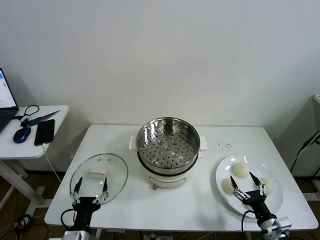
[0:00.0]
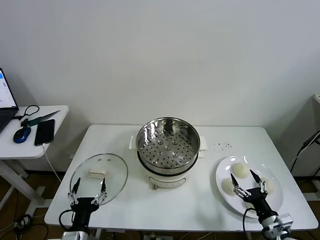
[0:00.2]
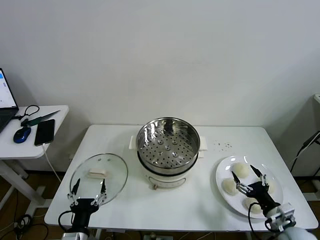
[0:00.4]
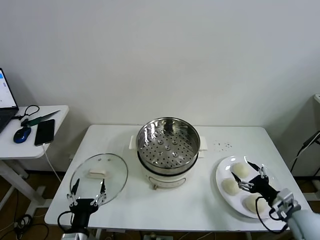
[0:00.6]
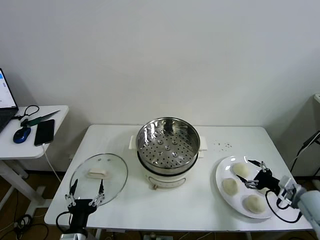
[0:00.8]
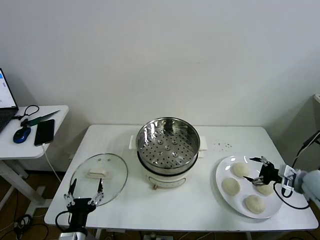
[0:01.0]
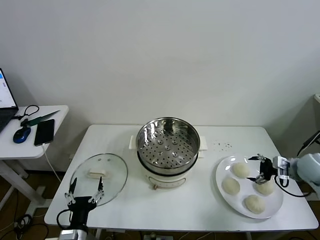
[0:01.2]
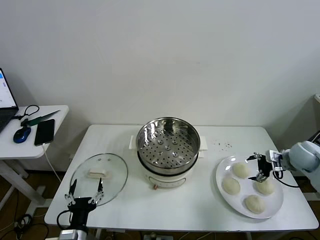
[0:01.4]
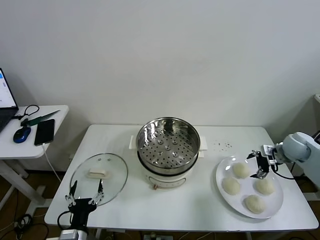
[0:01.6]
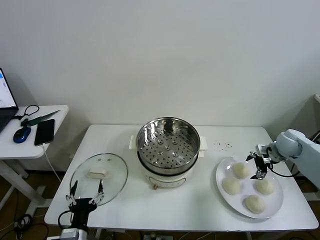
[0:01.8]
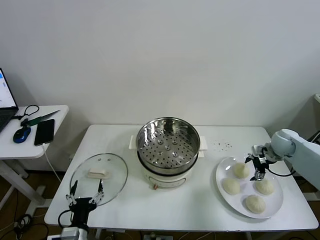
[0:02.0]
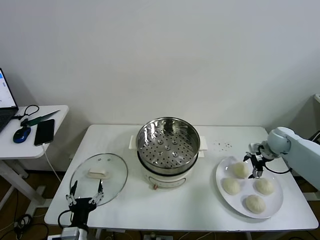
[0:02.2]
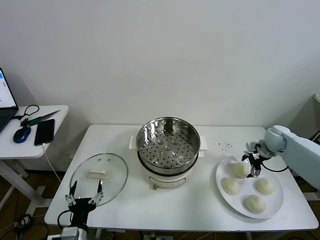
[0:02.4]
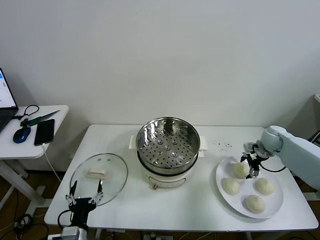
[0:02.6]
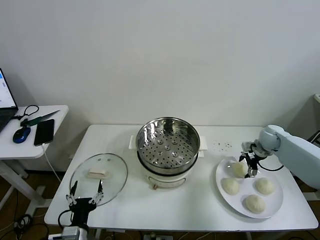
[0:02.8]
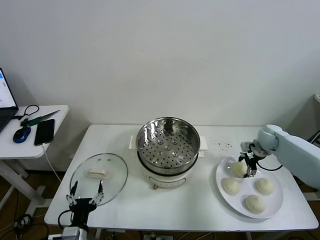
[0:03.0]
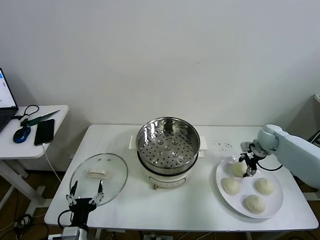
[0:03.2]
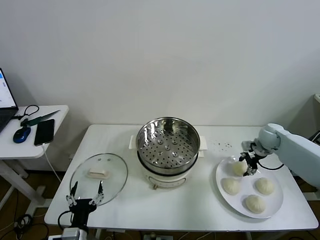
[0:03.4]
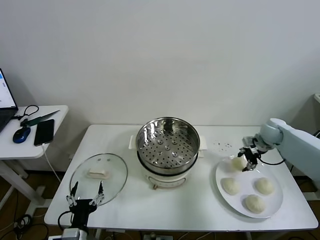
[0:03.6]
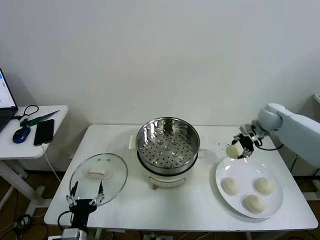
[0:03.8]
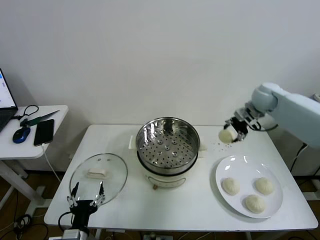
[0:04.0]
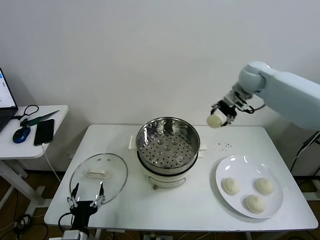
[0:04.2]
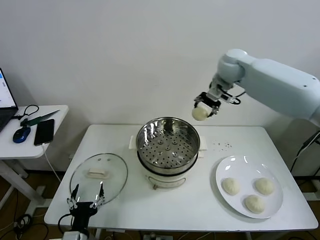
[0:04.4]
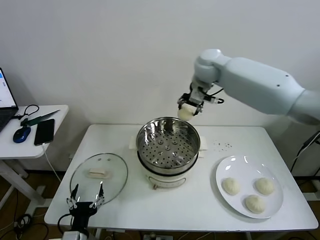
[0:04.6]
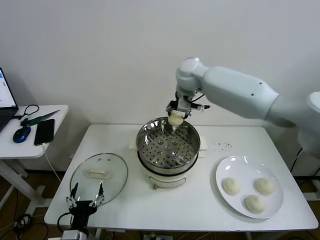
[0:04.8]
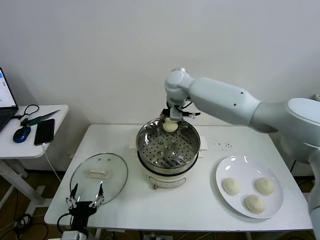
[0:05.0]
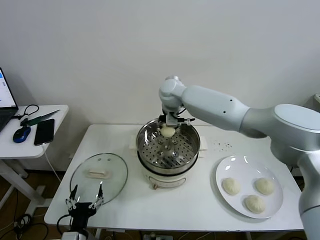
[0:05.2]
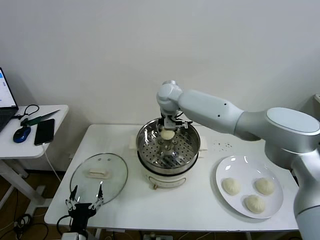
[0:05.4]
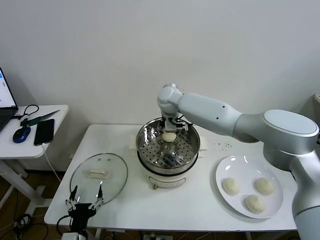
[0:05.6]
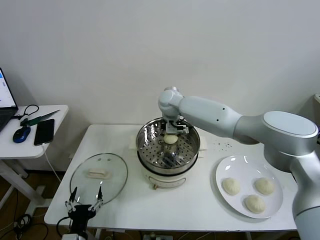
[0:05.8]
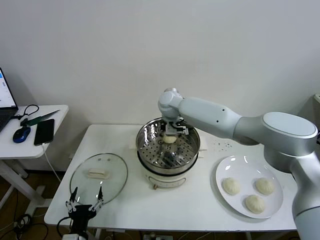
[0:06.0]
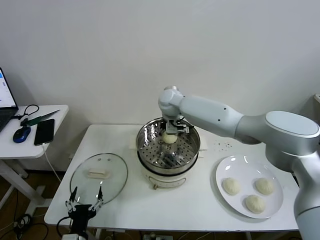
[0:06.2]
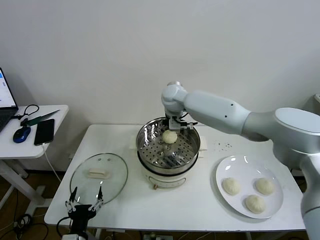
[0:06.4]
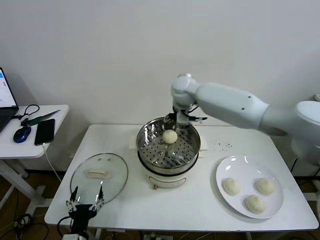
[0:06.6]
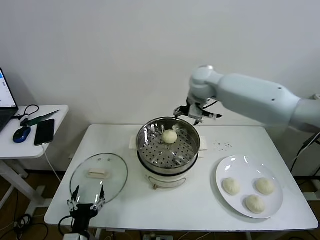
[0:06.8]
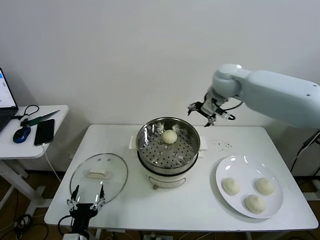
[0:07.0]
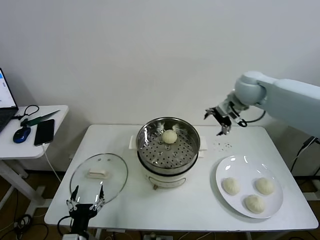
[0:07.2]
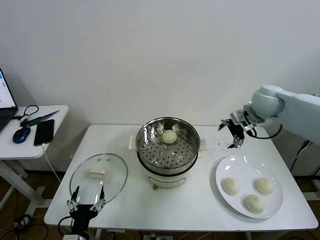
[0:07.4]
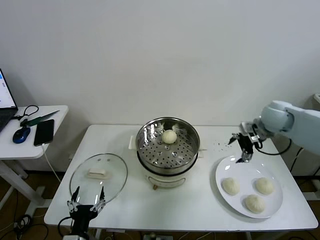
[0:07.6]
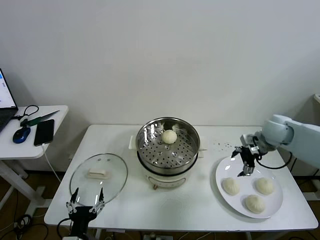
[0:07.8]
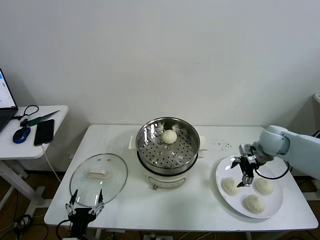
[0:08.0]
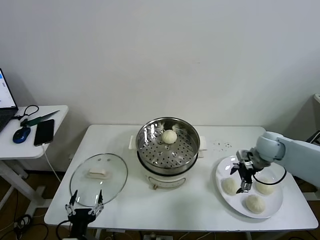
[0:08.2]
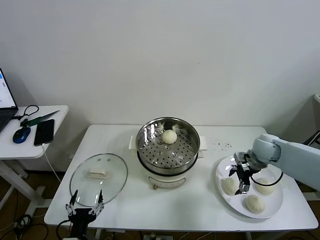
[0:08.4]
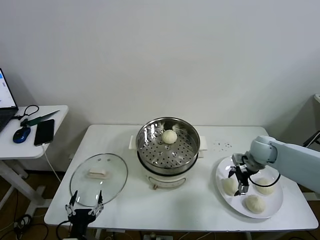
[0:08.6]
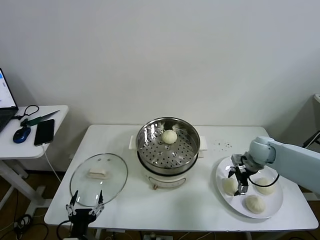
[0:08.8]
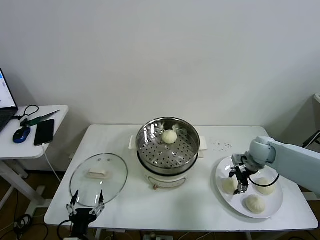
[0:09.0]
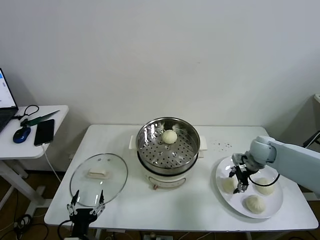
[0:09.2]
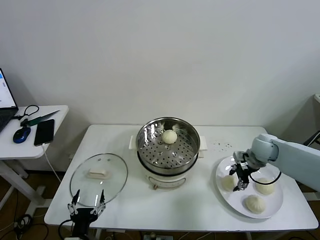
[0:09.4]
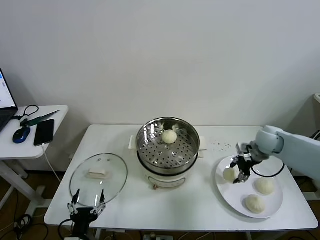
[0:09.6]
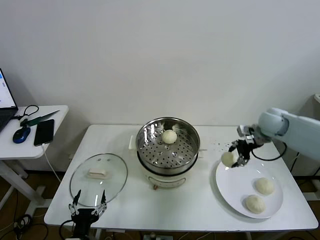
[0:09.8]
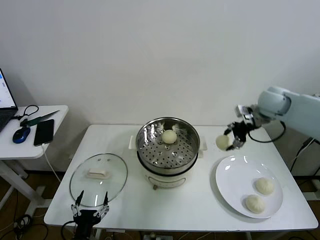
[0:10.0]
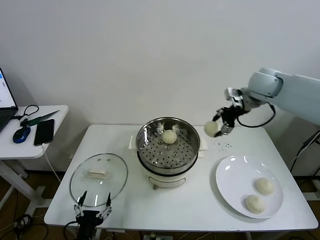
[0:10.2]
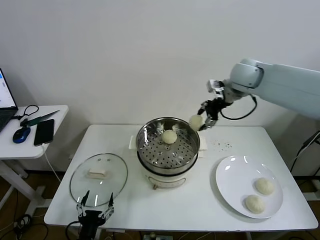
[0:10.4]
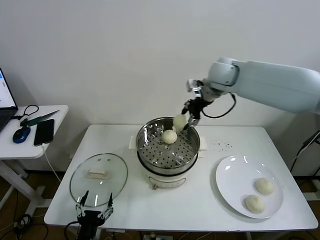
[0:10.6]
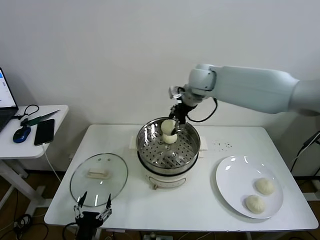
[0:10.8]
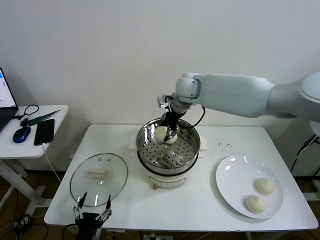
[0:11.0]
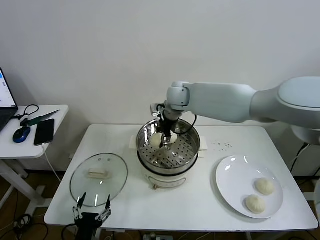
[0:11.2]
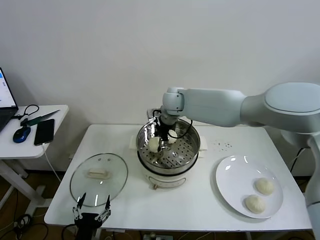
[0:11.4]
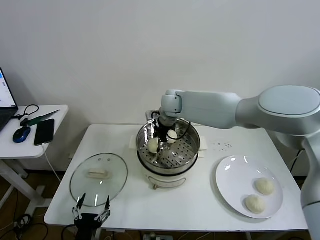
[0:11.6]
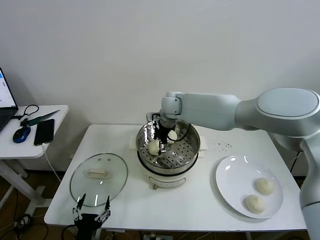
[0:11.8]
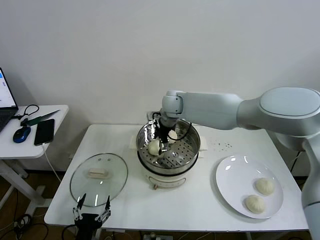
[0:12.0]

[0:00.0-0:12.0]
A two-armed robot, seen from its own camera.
Task of the whole recording: take steamed baozi put them in steamer then cover it.
Step, 0.0 to 3.2 s: Grasp the baozi in the plate with right gripper.
Step, 3.4 to 6.0 s: Place the baozi on the steamer with right gripper.
Step, 6.2 to 9.0 s: Grasp the baozi in the plate with right gripper.
Step, 9.4 to 12.0 s: Place the baozi on the steamer with right gripper.
1.6 to 3.0 s: The right gripper travels forward by about 5 cm, and closes up.
3.0 to 4.4 s: The right gripper travels upward and to the left by approximately 35 cm, and closes up.
4.4 to 6.0 s: The right gripper shifts approximately 20 cm to the left and downward, and opens up.
6.0 to 7.6 s: The right gripper is displaced to the right by approximately 35 cm.
7.6 to 9.0 s: The right gripper is displaced downward by some 15 cm, and closes up.
9.0 to 10.4 s: The right gripper shifts approximately 30 cm upward and to the left.
10.4 to 12.0 s: The right gripper heads to the left and downward, covering about 20 cm, and opens.

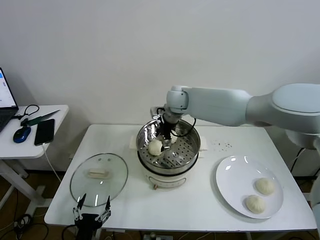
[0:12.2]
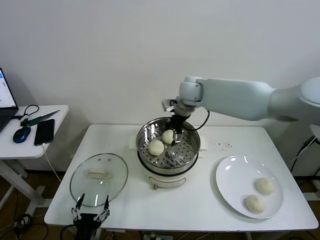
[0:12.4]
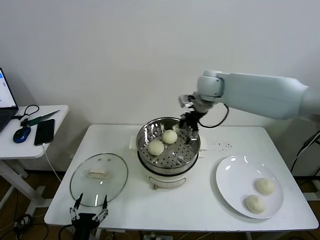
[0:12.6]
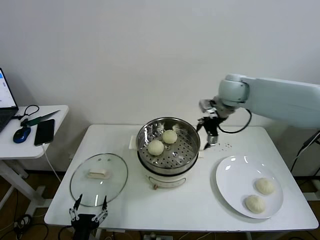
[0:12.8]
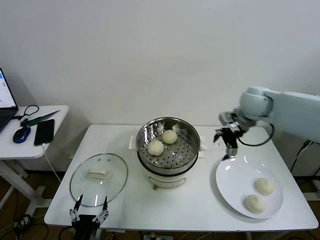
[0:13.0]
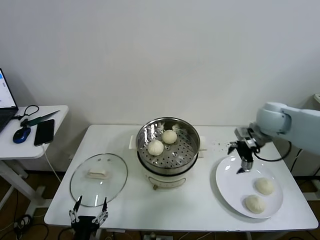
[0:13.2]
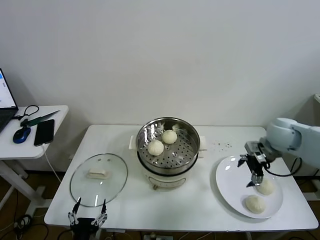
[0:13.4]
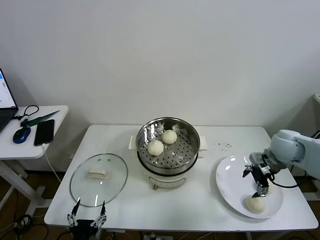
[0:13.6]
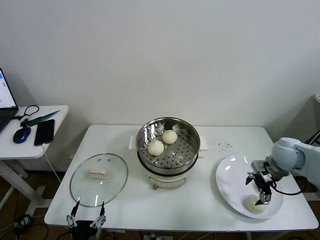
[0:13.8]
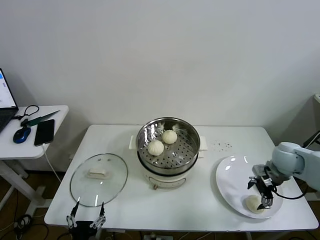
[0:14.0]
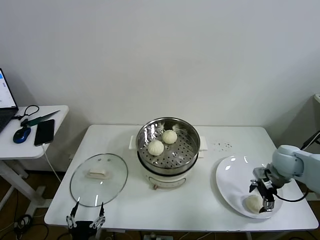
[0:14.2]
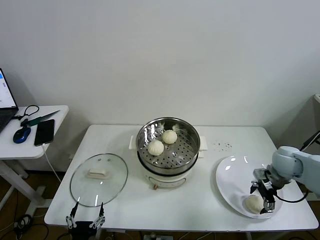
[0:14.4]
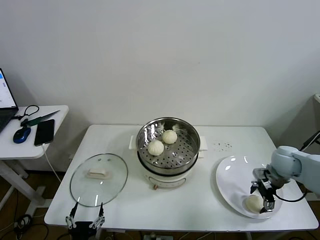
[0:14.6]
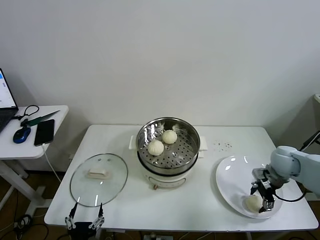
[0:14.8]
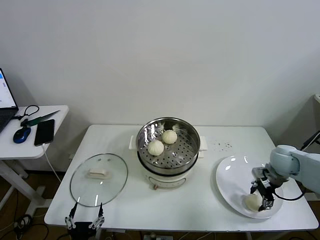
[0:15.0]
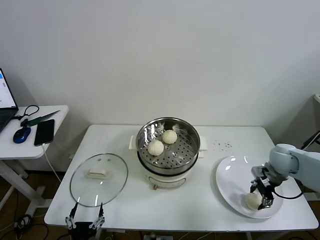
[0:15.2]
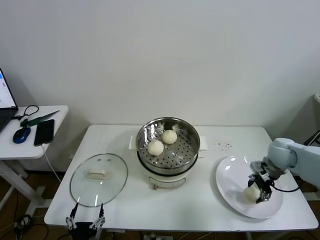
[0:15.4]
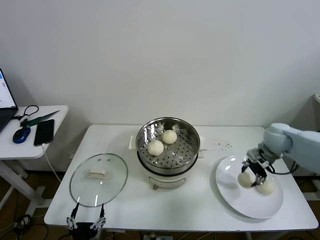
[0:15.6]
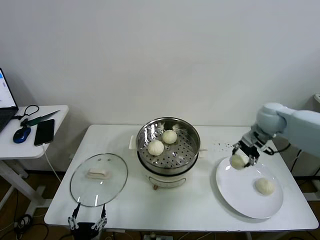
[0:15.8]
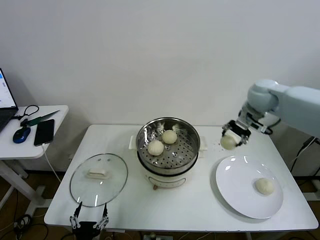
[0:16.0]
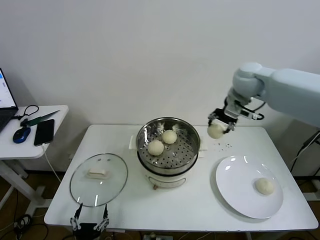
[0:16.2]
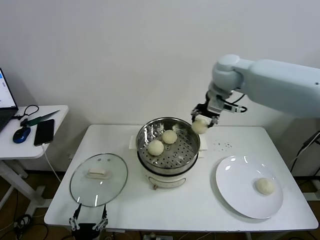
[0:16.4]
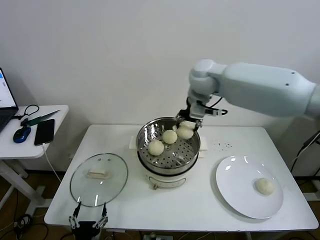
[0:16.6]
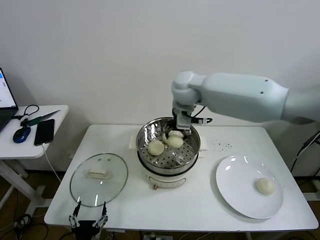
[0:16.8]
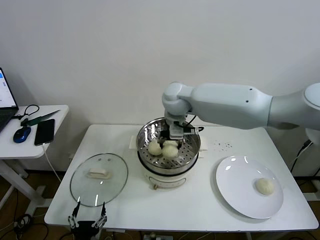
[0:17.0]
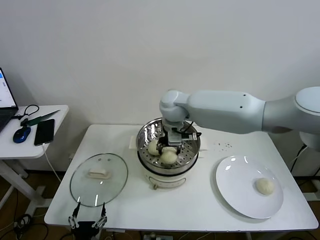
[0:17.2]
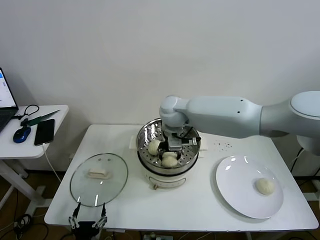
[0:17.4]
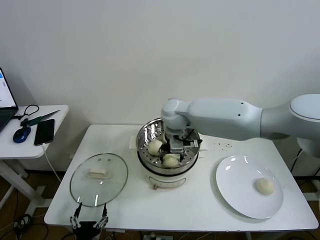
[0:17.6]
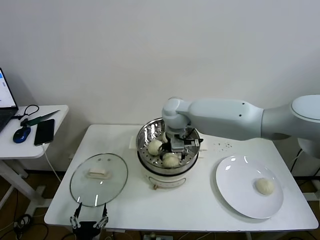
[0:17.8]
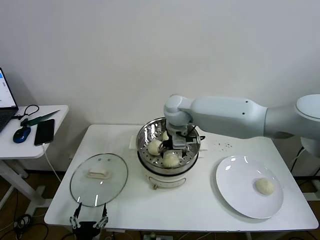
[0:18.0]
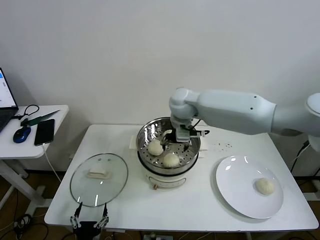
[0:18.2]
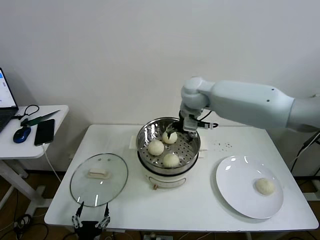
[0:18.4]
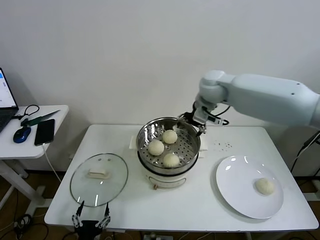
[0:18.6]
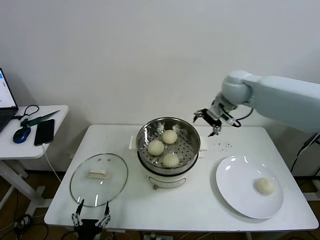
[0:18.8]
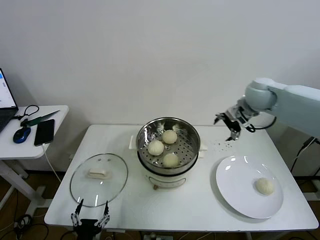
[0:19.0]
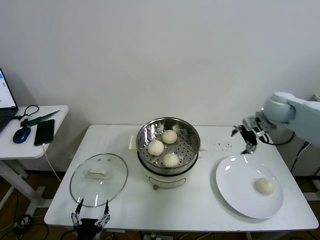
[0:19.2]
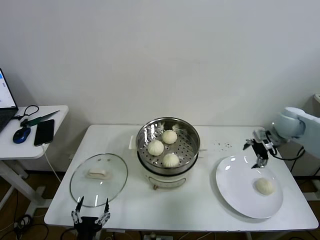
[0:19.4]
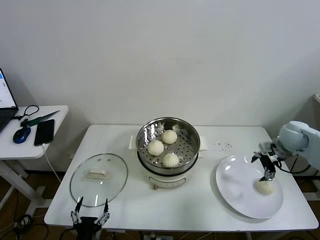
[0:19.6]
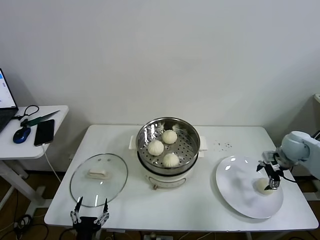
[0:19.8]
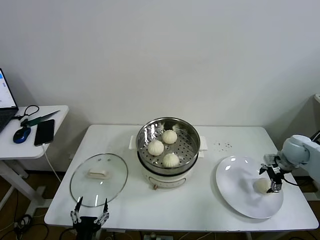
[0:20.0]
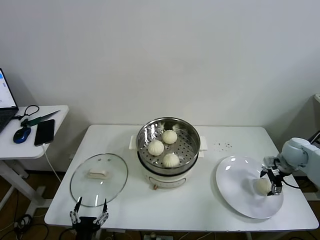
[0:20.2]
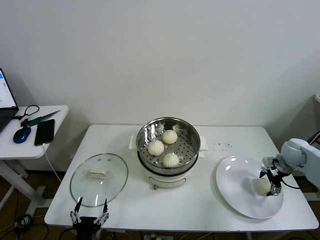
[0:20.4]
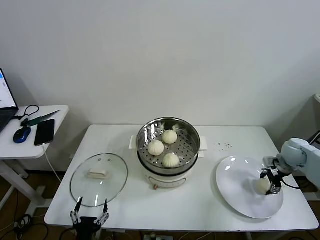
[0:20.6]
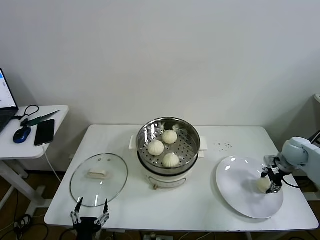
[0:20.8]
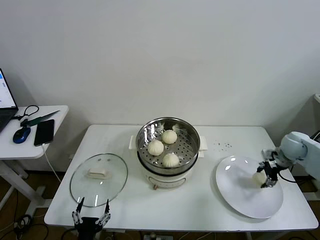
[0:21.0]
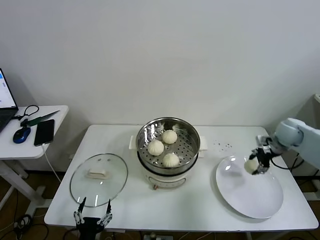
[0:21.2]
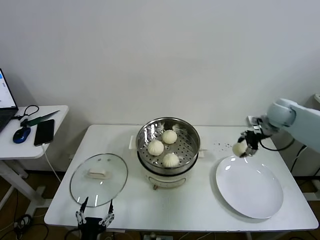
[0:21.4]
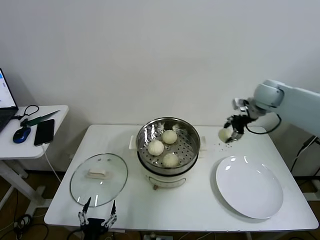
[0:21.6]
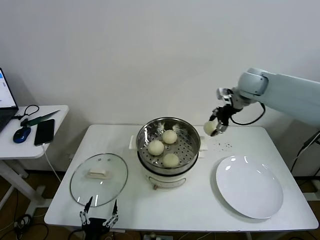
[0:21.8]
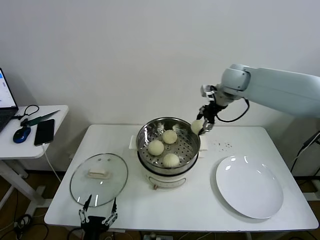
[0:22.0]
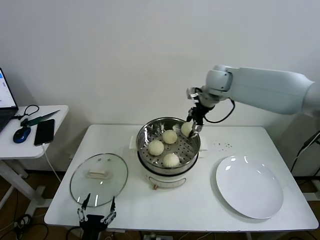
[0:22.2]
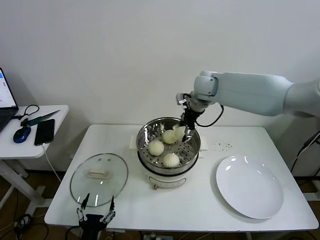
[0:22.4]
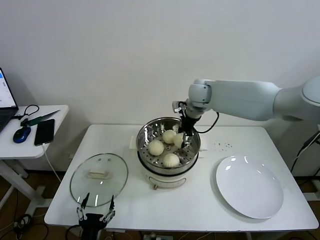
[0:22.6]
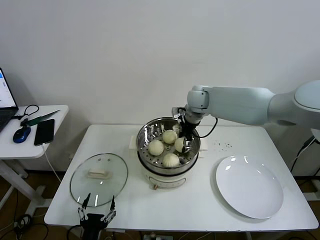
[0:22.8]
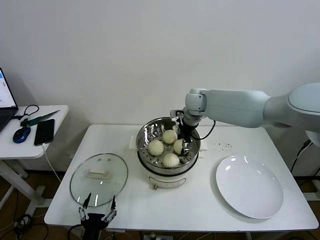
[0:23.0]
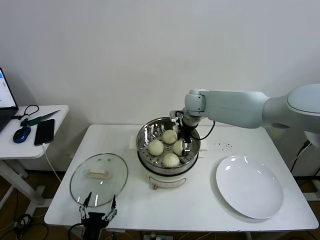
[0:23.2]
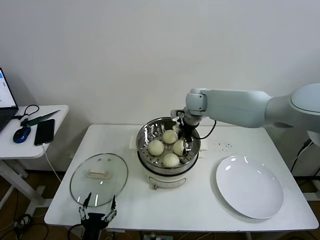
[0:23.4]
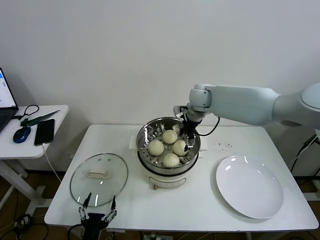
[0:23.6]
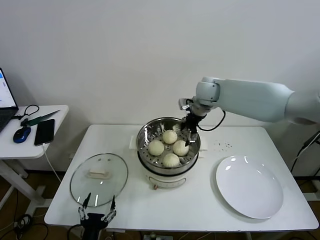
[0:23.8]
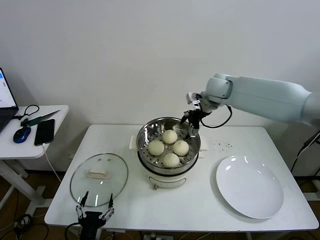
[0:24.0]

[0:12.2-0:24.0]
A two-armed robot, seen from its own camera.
Task of the whole recording: take steamed baozi put them in steamer then cover it.
Step, 12.2 to 15.0 s: Grasp the baozi in the plate with right gripper.
Step, 15.4 to 17.8 s: Place the baozi on the steamer with right gripper.
Step, 18.0 to 20.6 s: Grasp the baozi in the plate with right gripper.
Step, 20.8 to 23.4 s: Place the baozi on the steamer with right gripper.
12.2 to 13.6 s: The right gripper is displaced to the right and backward by roughly 35 cm.
13.6 to 15.2 s: The right gripper moves downward, some 5 cm, and closes its fingers.
15.2 to 16.6 s: The right gripper moves to the left and upward, about 40 cm.
16.6 to 18.2 s: The right gripper is displaced downward by roughly 10 cm, and opens.
18.2 to 19.6 s: The right gripper travels to the right by approximately 40 cm.
19.6 to 21.0 s: The right gripper closes up.
21.0 to 22.6 s: The right gripper moves to the left and upward, some 35 cm.
22.6 to 24.0 s: The right gripper heads to the right, covering approximately 5 cm, and opens its fingers.
